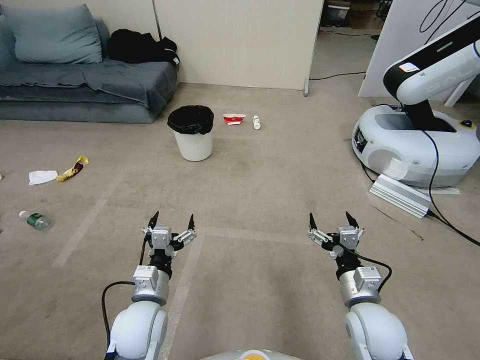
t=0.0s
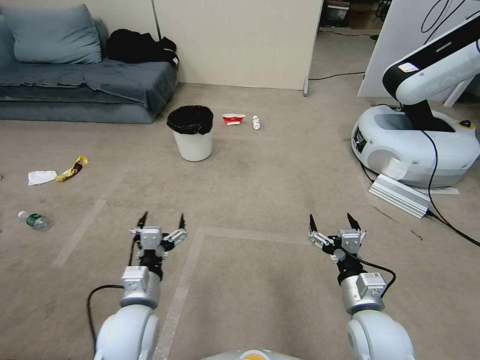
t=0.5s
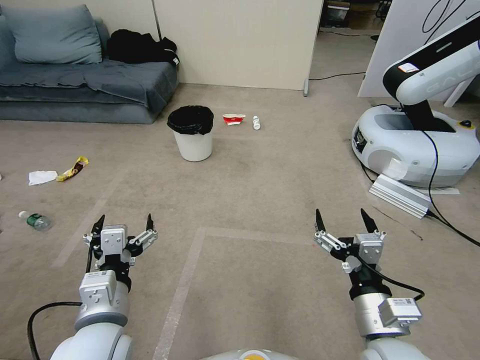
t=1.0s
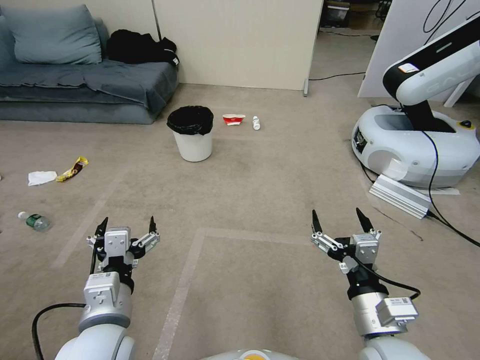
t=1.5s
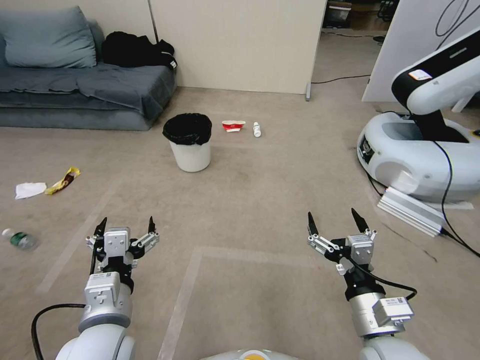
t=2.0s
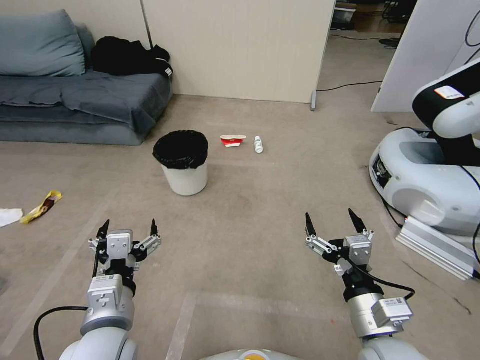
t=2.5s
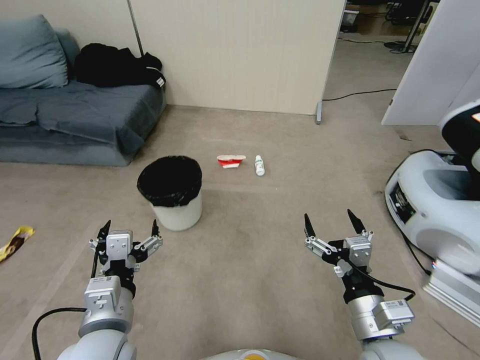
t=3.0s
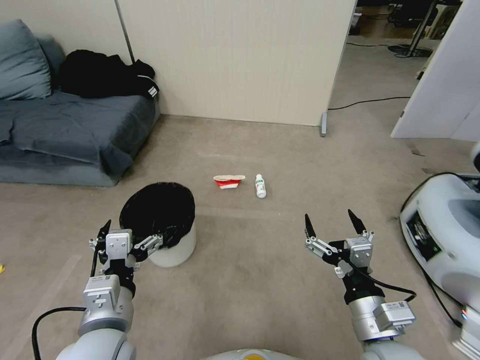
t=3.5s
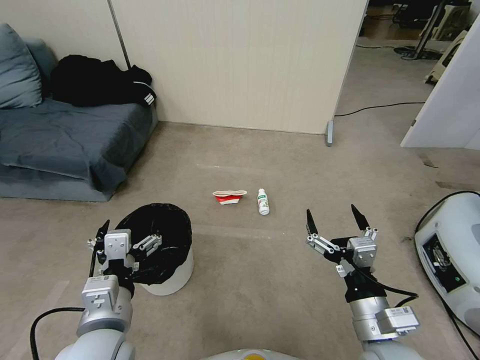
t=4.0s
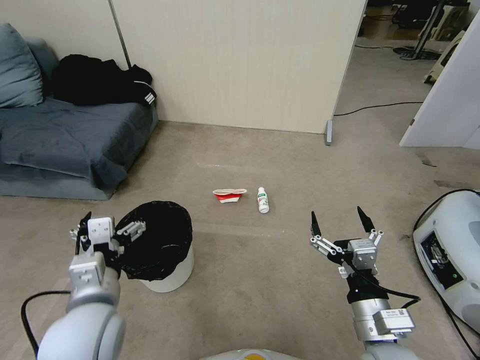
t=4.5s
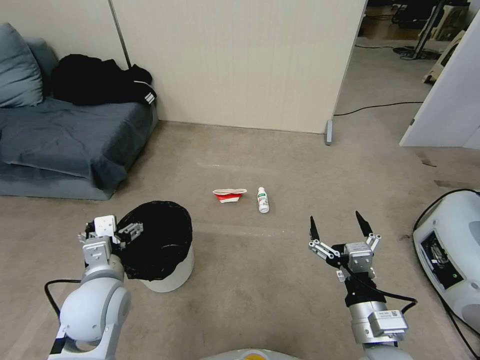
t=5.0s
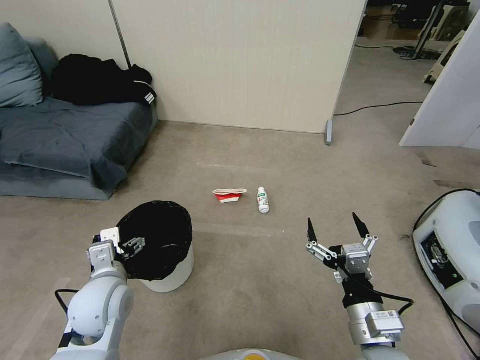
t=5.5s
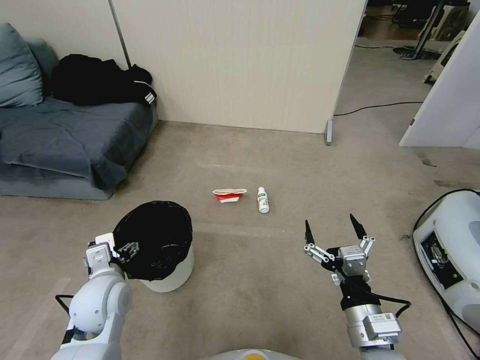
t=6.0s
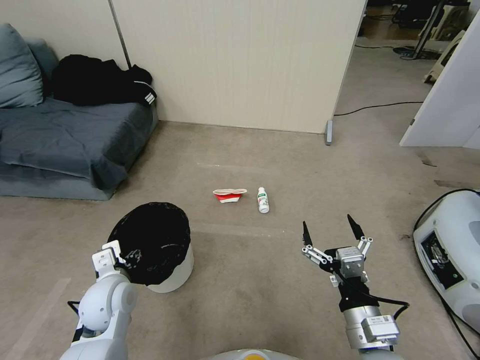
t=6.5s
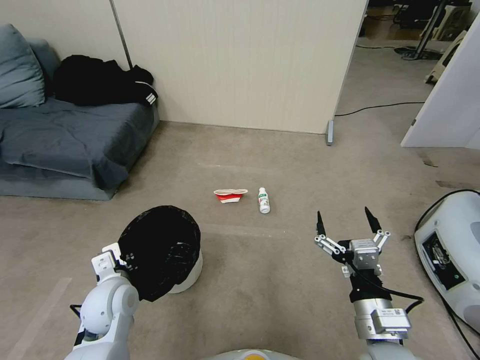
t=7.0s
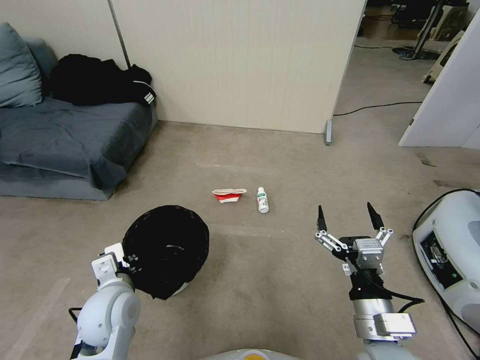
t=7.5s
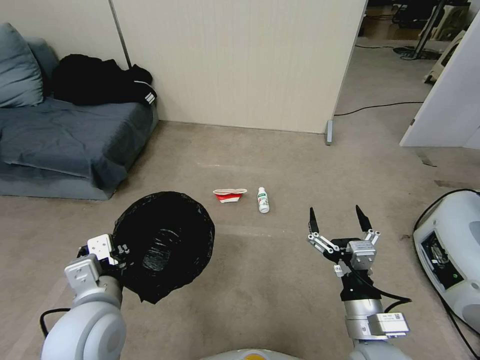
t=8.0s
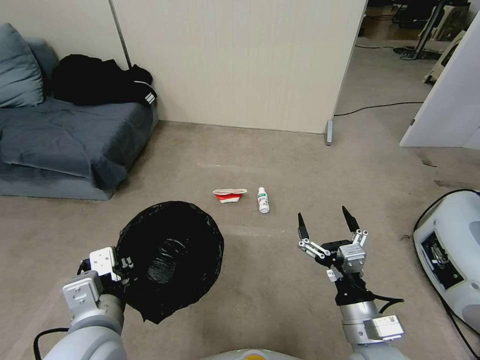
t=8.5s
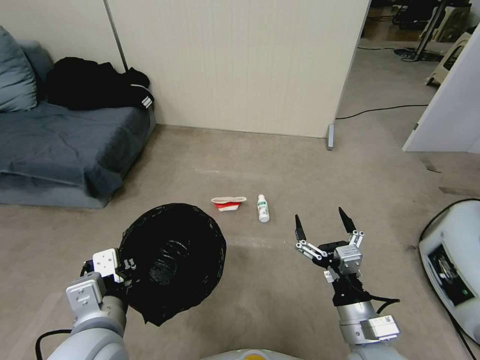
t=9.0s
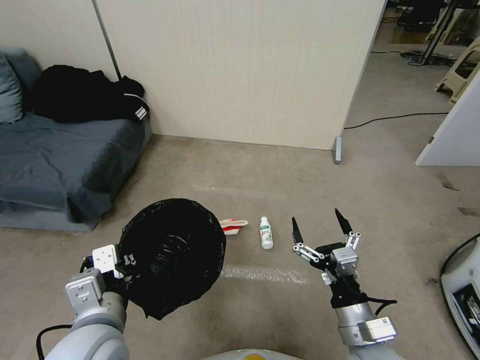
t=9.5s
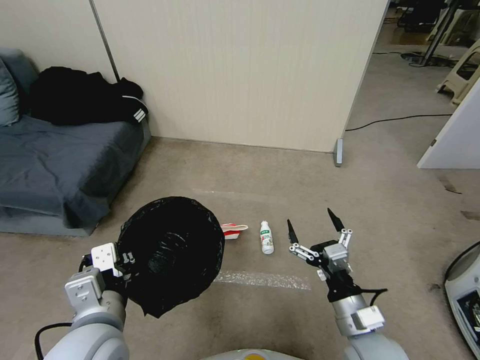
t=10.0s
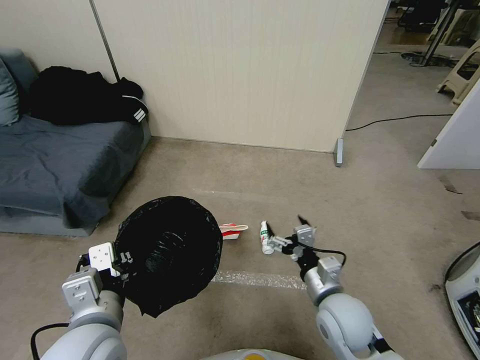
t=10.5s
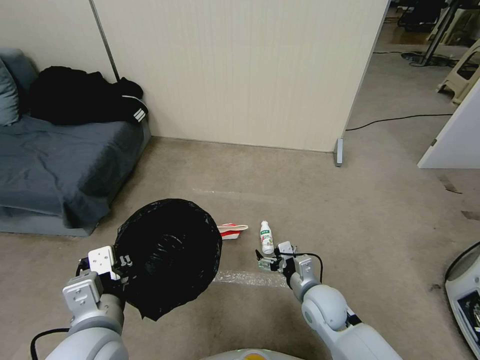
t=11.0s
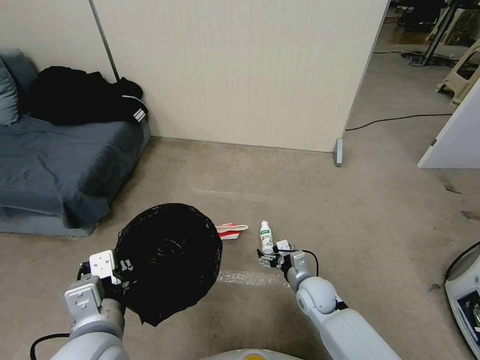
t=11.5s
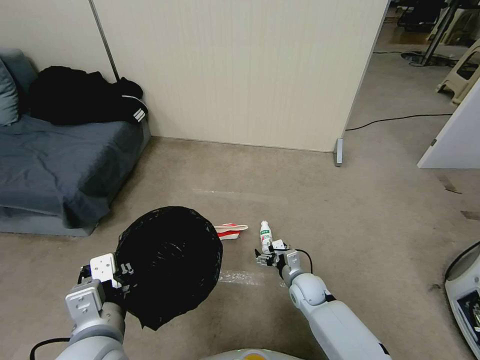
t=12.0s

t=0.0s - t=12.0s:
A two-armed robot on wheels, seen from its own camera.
Task of the whole recording: Pick up the trash bin, then pick up the garbage from the floor and place it into the trash bin.
t=4.0s - t=6.0s: The left gripper heads forward, downward and to the left, covering about 15 cm.
t=6.0s - t=8.0s: The left gripper is displaced upward and backward by approximately 10 cm, and closes its fingers.
t=10.0s - t=12.0s: The right gripper moves downward and forward, roughly 25 cm.

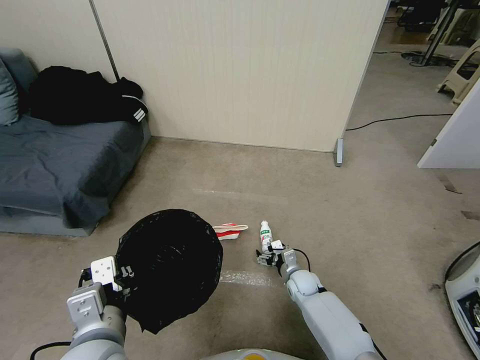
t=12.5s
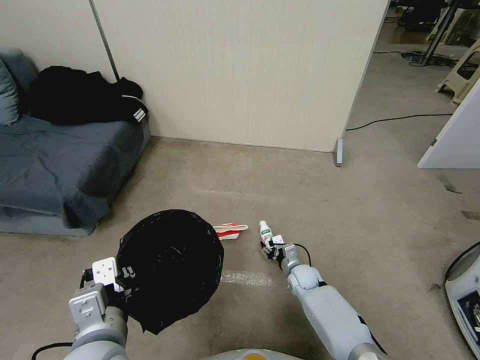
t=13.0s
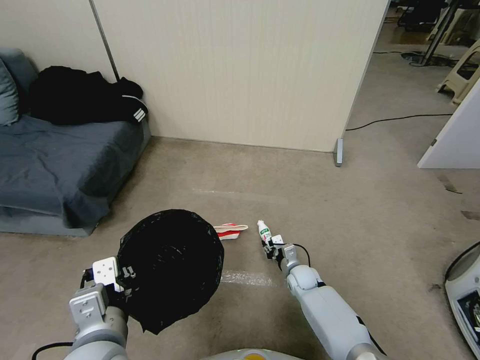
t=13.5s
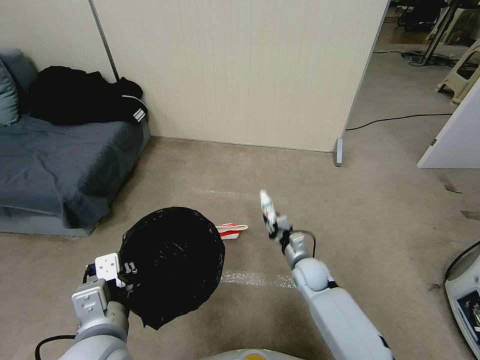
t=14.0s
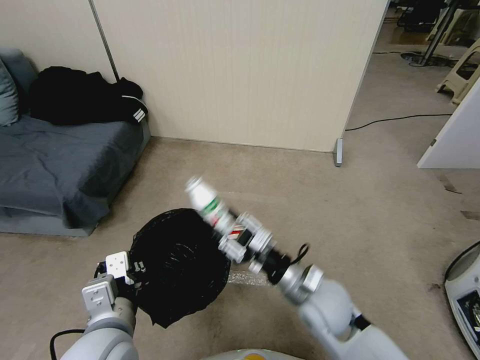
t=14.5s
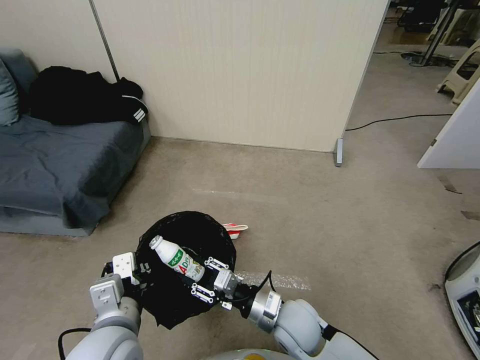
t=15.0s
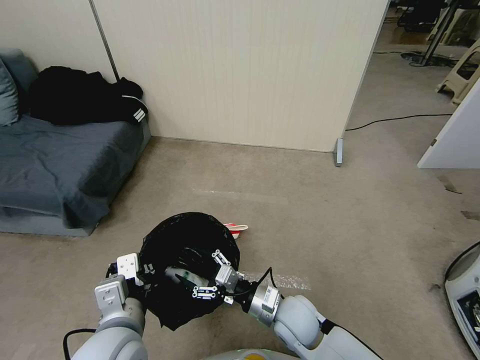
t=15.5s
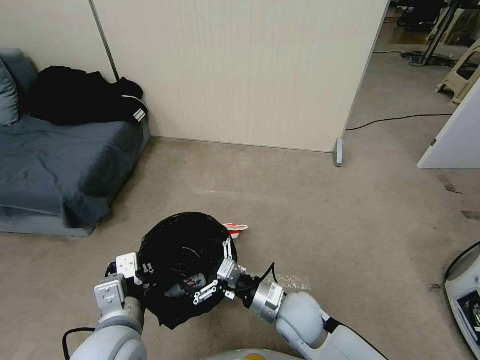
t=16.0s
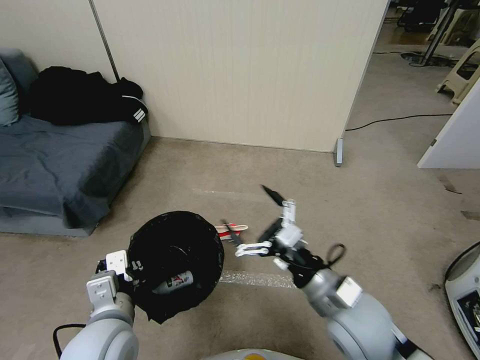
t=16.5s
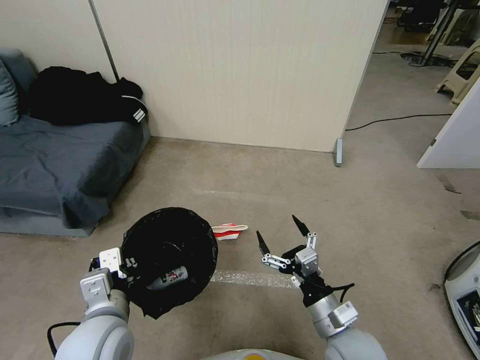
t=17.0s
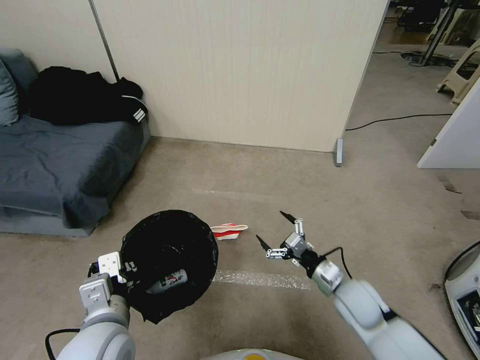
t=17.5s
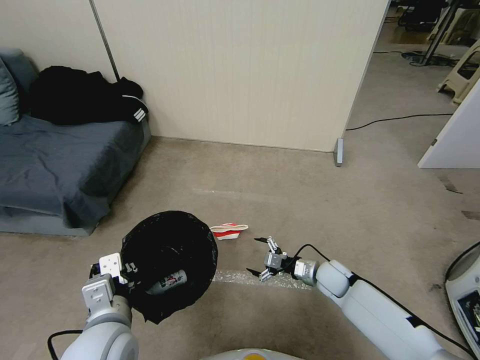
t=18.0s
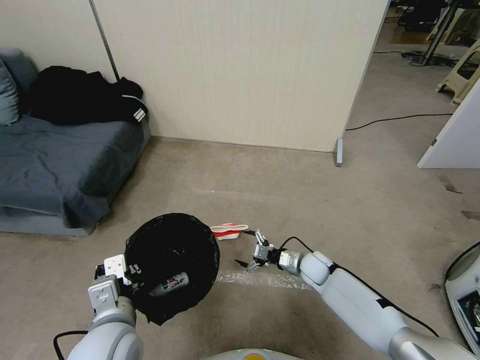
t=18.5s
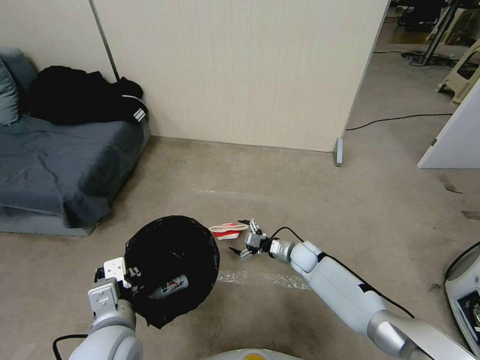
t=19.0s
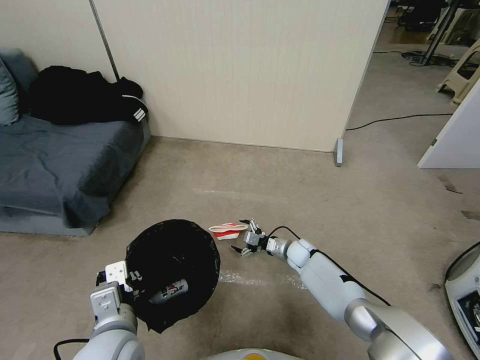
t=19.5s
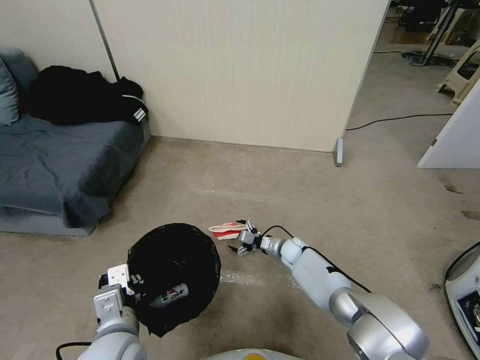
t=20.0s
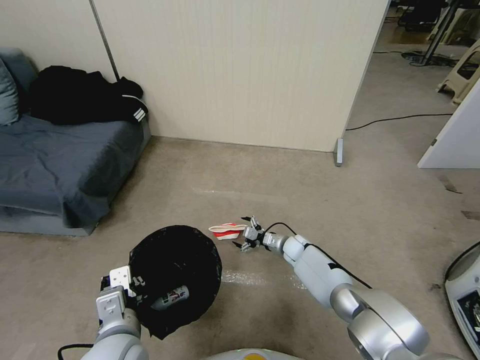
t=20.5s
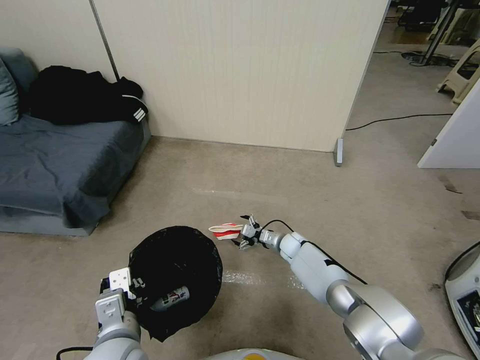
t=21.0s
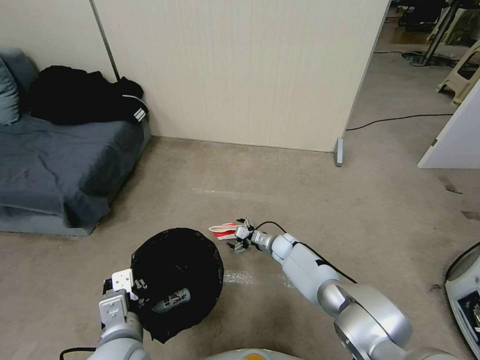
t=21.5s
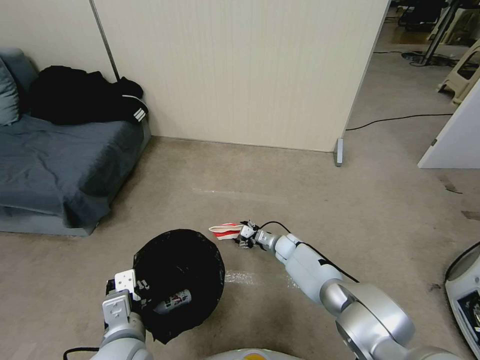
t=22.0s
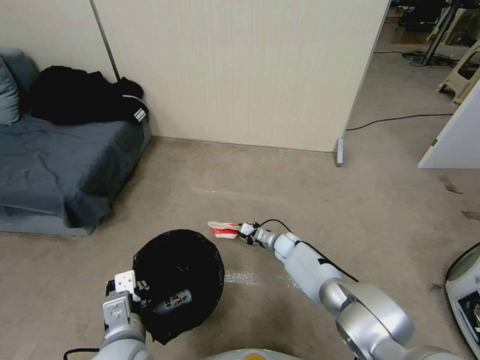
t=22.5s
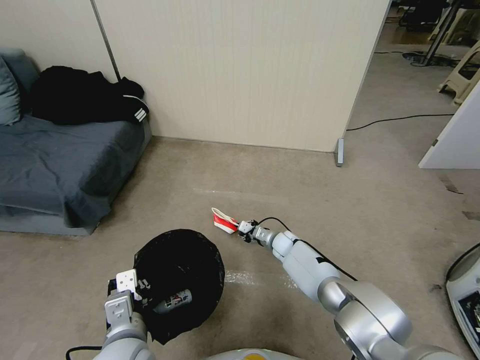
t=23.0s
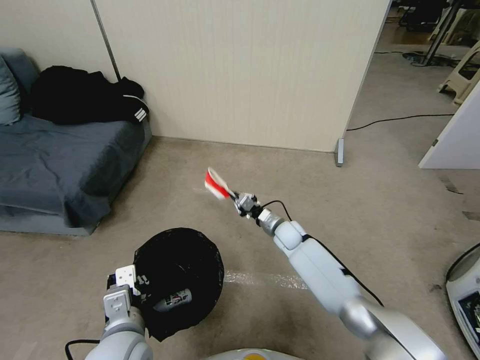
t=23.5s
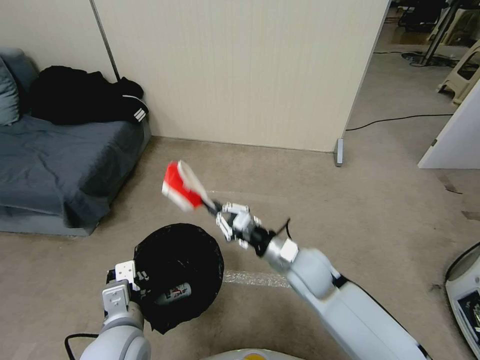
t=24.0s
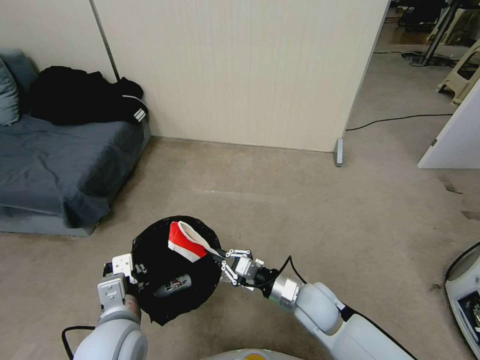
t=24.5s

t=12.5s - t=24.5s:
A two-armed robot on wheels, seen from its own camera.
Task of the whole recording: Pick up the trash bin, then pick up the garbage from the floor and place it into the trash bin.
t=12.5s - t=14.5s: The right gripper is displaced upward and backward by approximately 25 cm, and closes.
t=14.5s - t=16.5s: The right gripper goes roughly 5 cm upward, and opens its fingers.
t=16.5s - t=18.5s: The right gripper goes about 30 cm downward and forward.
t=18.5s - t=20.5s: The right gripper moves forward, some 10 cm.
t=20.5s - t=22.5s: The right gripper closes up.
t=22.5s - t=24.5s: The right gripper is displaced backward and upward by about 25 cm.

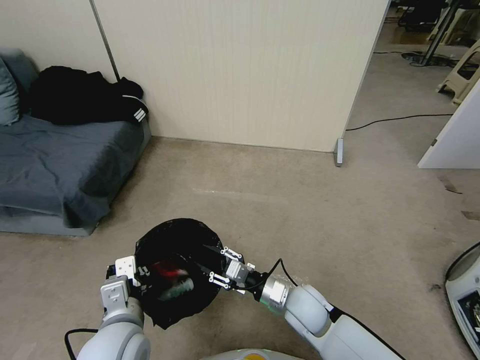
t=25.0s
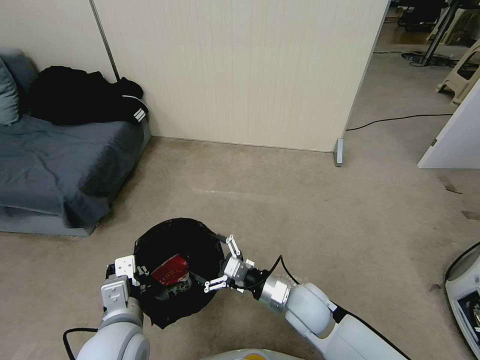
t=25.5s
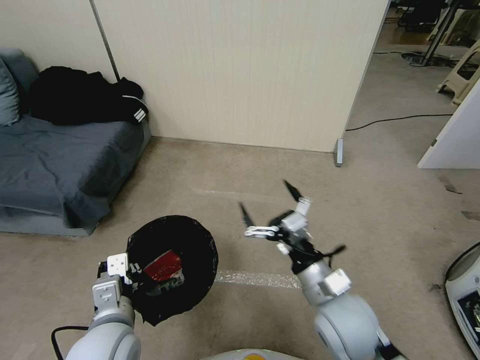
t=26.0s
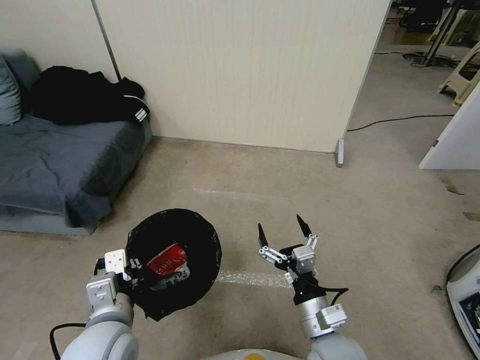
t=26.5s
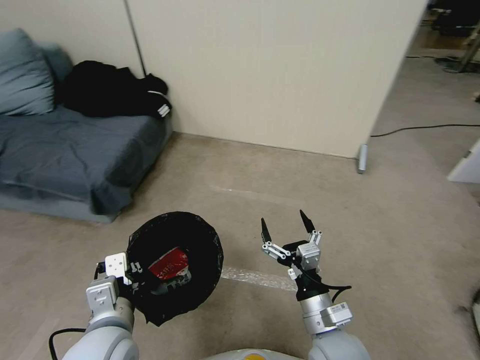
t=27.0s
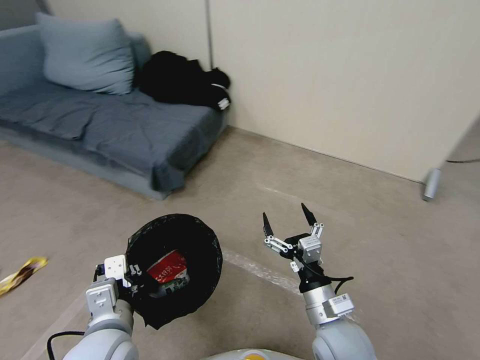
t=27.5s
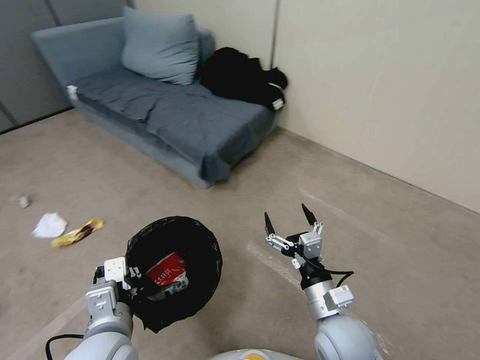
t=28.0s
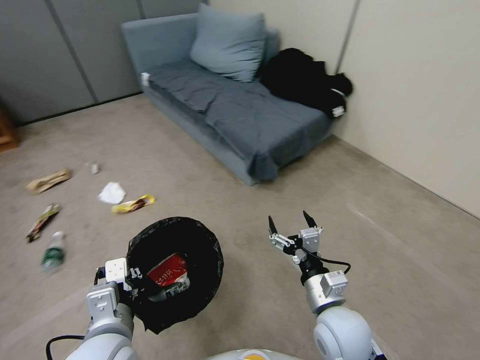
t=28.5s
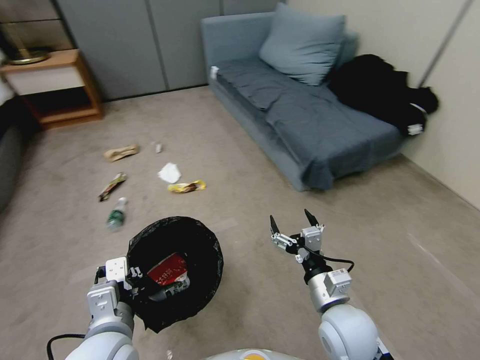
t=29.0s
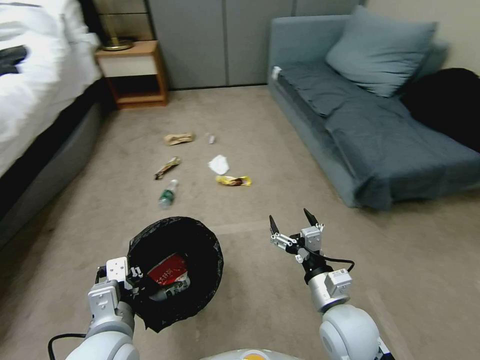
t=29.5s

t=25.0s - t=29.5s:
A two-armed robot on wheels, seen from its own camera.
Task of the whole recording: Pick up the trash bin, then pick up the garbage from the floor and place it into the trash bin.
t=25.0s - t=27.0s: The right gripper shifts about 10 cm backward and upward, and opens.
